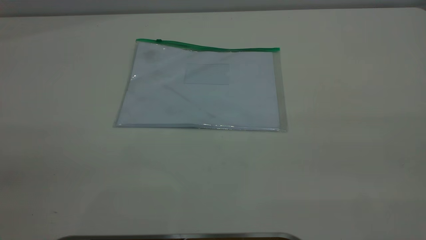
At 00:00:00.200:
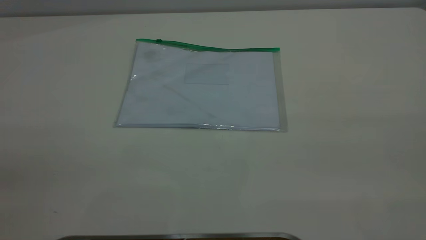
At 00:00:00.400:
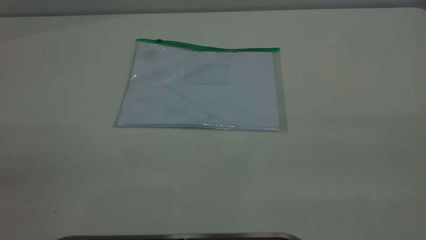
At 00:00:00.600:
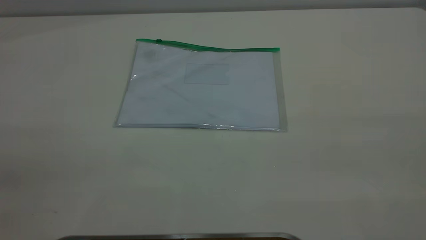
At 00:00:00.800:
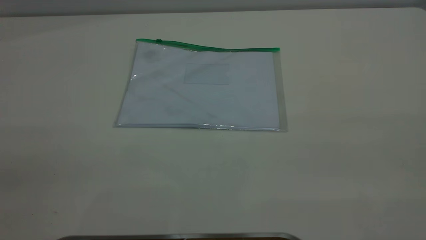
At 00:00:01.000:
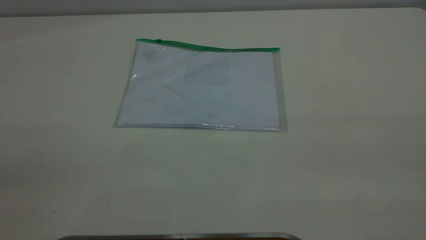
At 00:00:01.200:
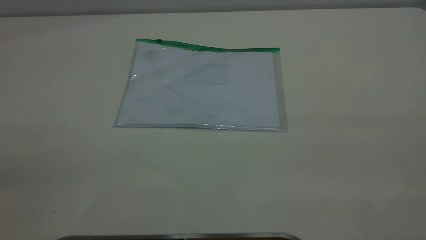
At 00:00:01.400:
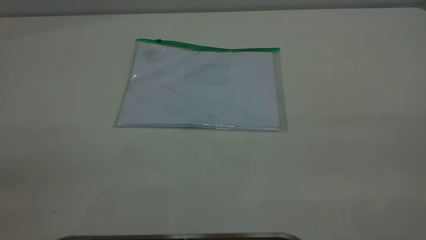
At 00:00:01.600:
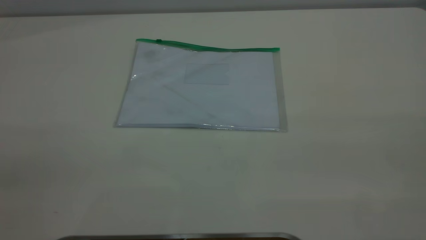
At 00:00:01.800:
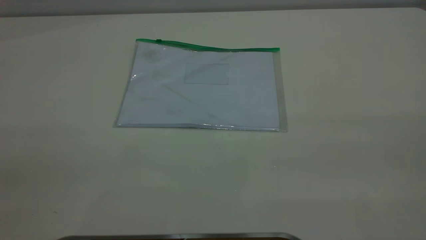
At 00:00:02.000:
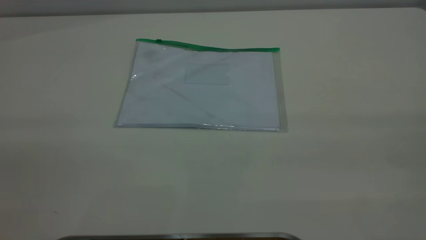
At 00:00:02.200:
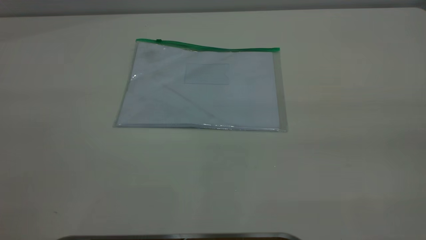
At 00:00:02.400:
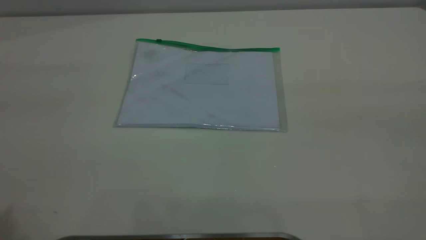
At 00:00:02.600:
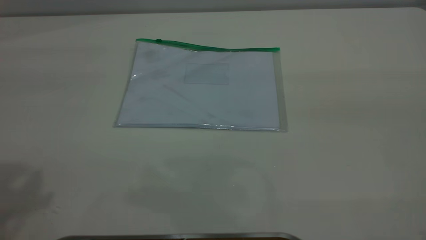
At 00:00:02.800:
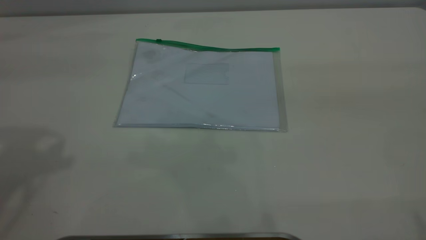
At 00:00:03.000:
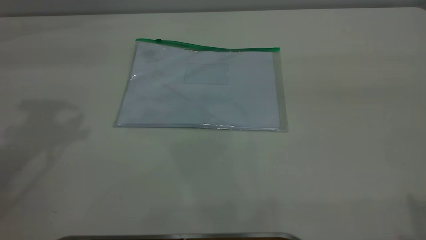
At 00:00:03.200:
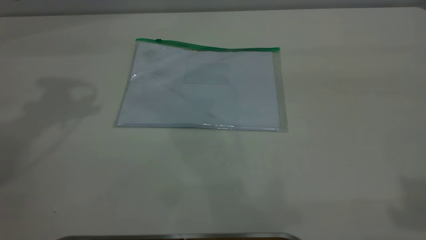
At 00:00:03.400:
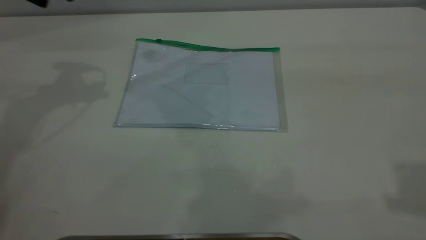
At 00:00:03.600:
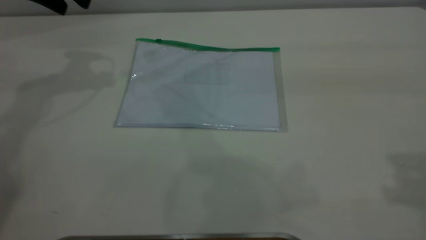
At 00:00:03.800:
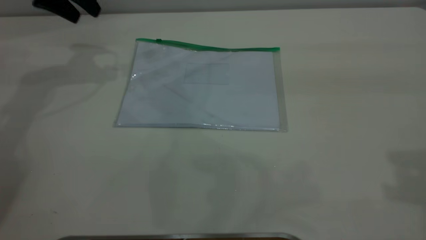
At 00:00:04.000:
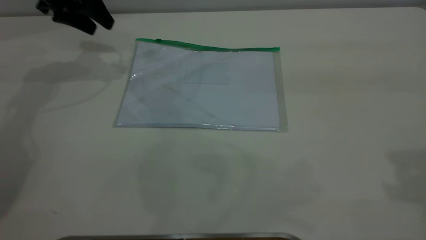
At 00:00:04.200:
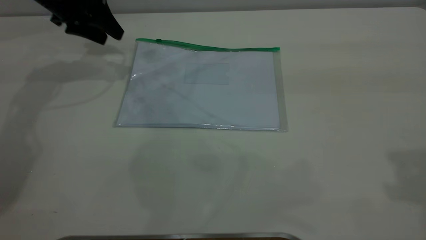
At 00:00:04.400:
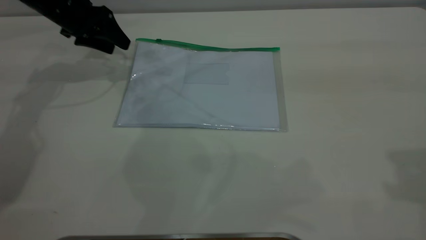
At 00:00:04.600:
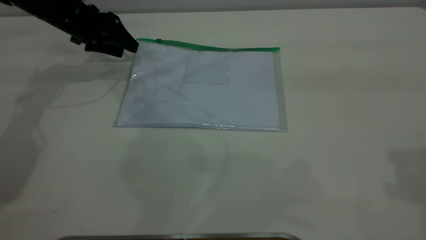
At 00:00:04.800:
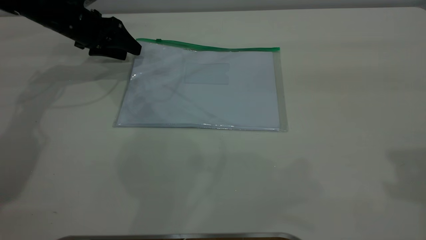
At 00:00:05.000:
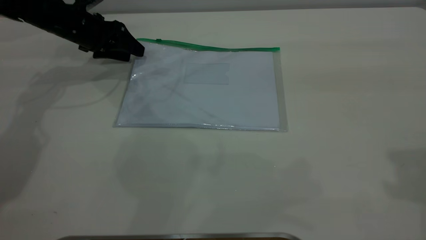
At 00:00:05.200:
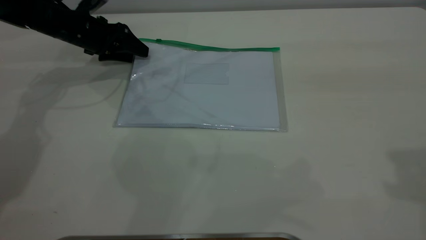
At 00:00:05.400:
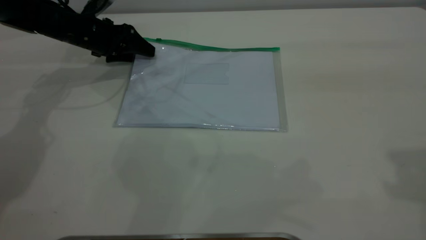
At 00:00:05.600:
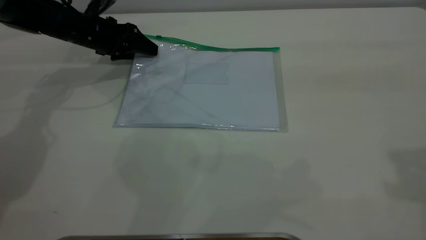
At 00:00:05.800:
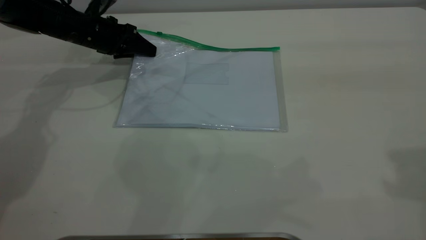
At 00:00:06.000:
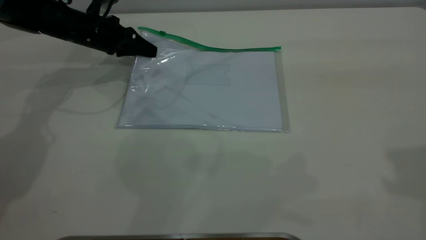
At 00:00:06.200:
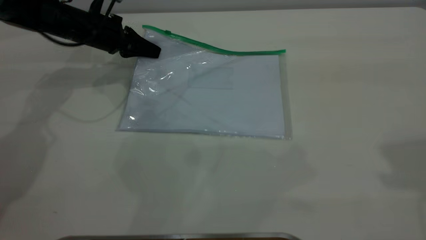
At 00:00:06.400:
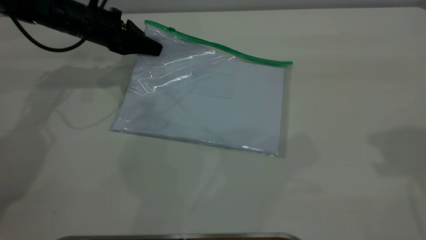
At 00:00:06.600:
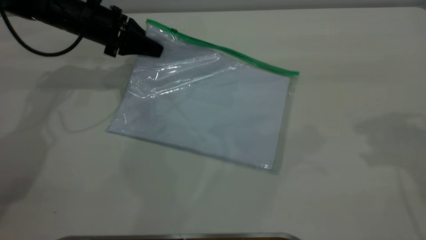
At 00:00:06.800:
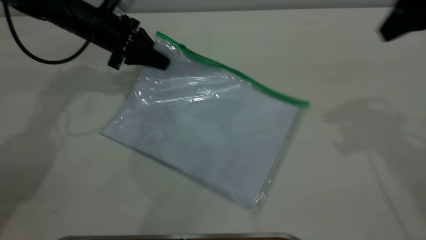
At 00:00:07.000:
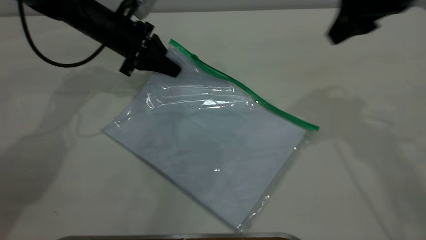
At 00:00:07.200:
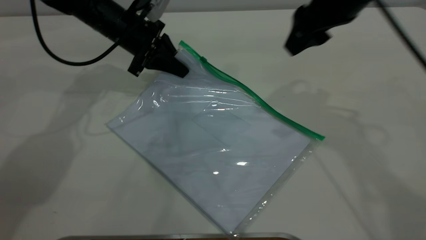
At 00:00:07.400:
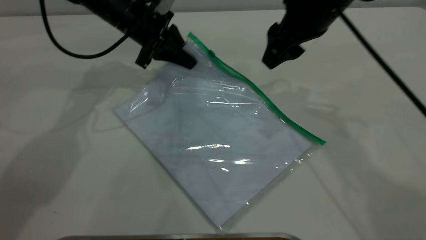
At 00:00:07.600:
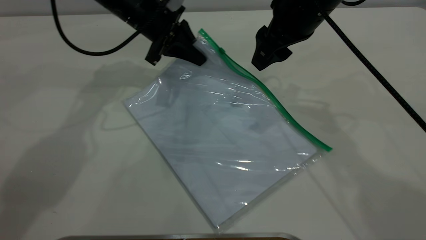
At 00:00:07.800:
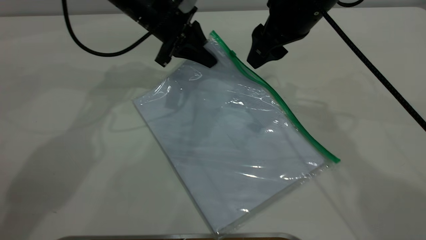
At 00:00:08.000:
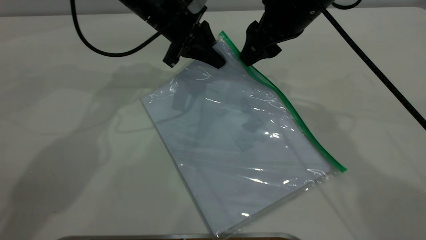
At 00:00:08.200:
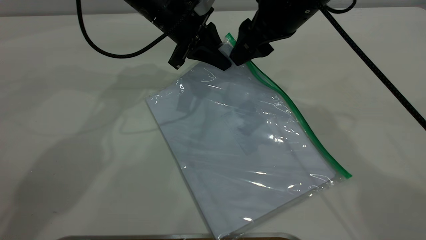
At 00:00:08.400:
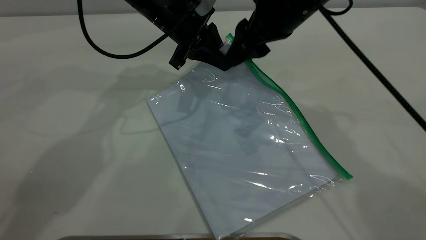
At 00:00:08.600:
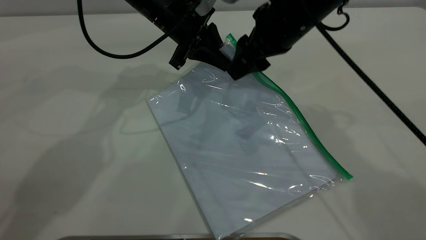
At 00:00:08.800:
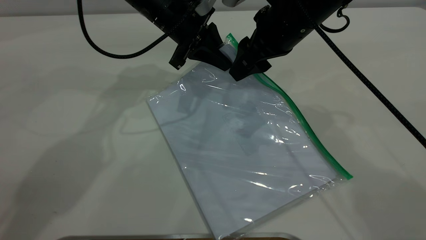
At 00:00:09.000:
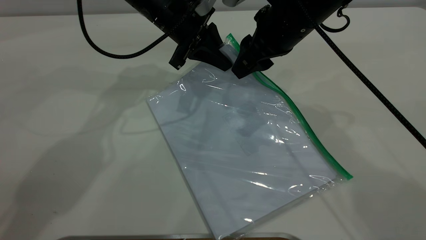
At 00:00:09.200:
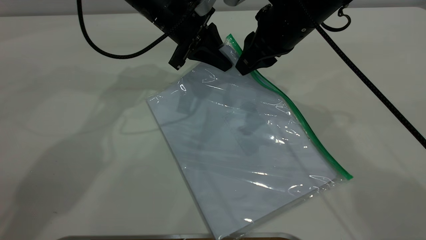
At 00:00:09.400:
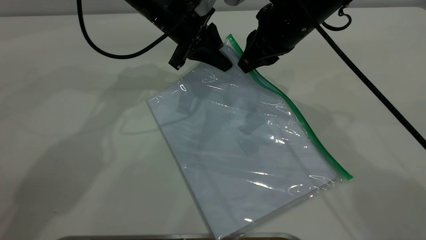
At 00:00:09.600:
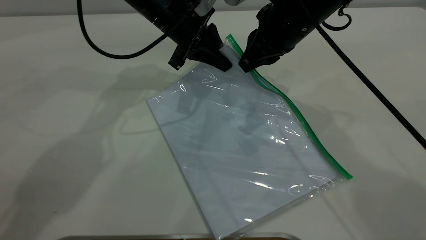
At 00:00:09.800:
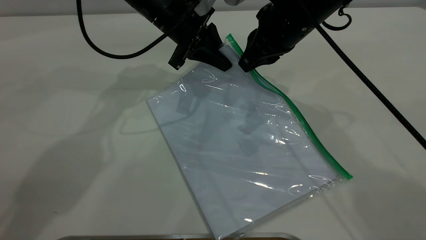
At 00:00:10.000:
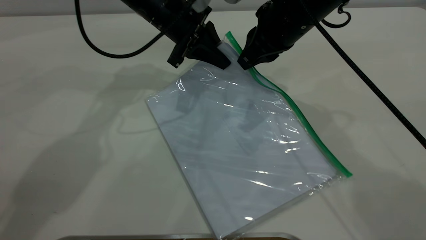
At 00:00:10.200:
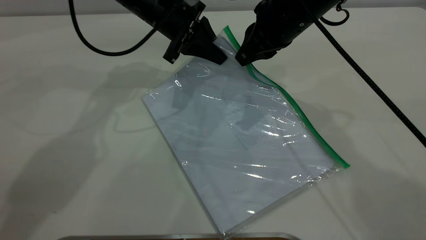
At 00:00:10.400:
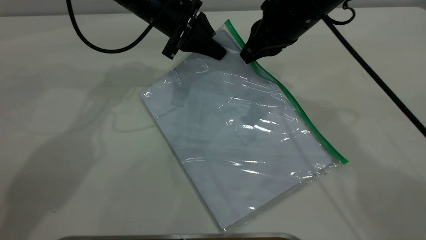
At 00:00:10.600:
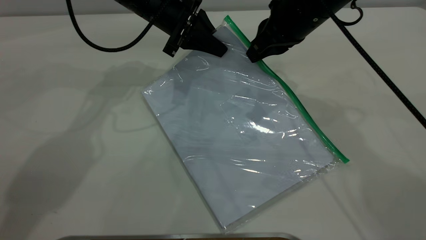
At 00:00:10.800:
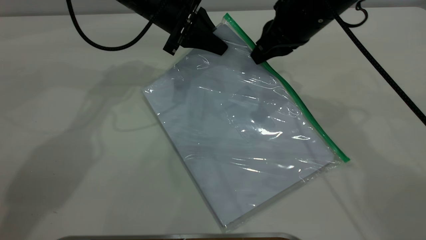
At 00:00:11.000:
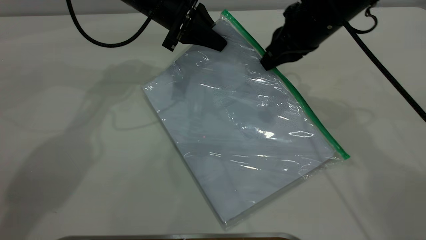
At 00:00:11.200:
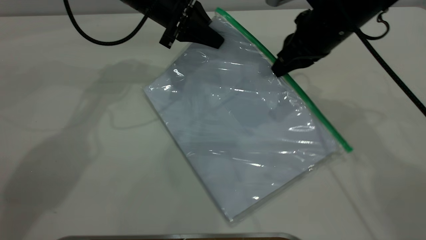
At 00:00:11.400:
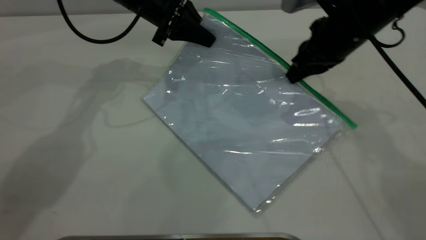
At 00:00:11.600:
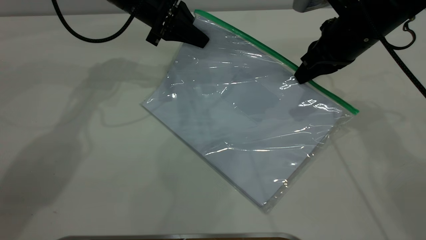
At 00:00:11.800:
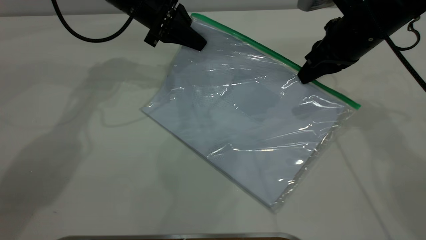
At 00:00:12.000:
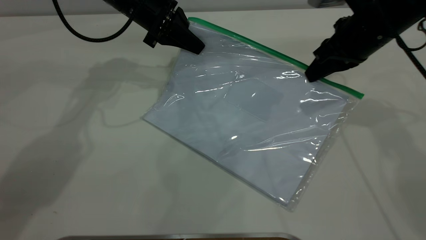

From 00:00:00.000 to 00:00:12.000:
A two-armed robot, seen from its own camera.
Step, from 00:00:00.000 to 00:00:06.800: Pick up the transparent plastic bag with the left gripper.
From 00:00:00.000 to 00:00:01.600: Both grippers stay about where they are.
From 00:00:03.000 to 00:00:04.400: The left gripper is displaced downward and forward by approximately 25 cm.
From 00:00:04.400 to 00:00:06.000: The left gripper shifts approximately 5 cm downward, and closes.
From 00:00:06.000 to 00:00:07.600: The left gripper is displaced to the right and upward by some 15 cm. The right gripper is displaced to the left, forward and downward by about 30 cm.
From 00:00:07.600 to 00:00:09.000: The right gripper closes.
From 00:00:09.000 to 00:00:10.400: The right gripper closes its fingers.
From 00:00:10.400 to 00:00:12.000: The right gripper shifts some 10 cm to the right.

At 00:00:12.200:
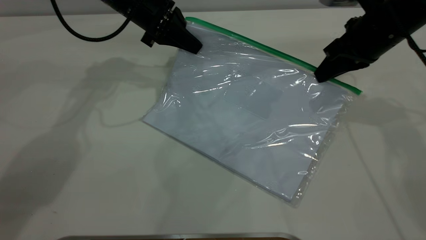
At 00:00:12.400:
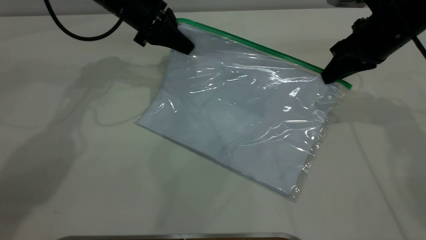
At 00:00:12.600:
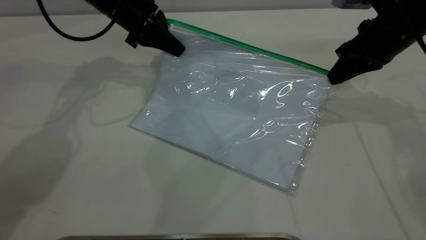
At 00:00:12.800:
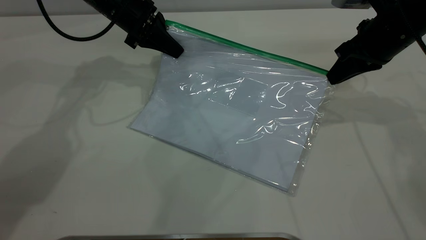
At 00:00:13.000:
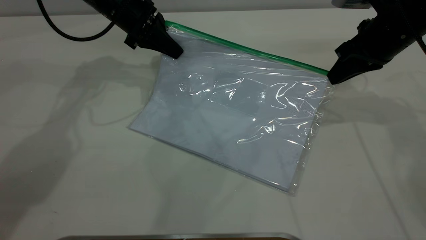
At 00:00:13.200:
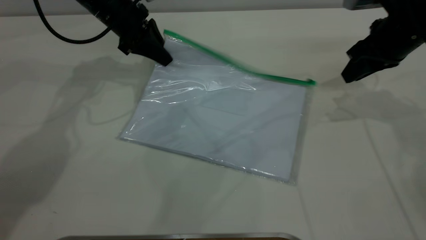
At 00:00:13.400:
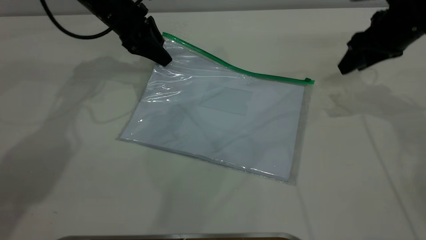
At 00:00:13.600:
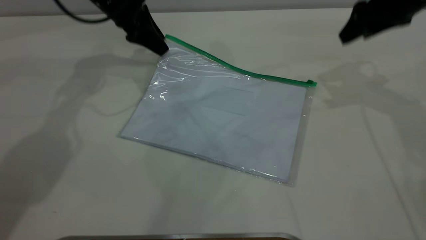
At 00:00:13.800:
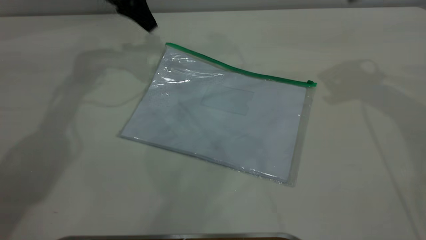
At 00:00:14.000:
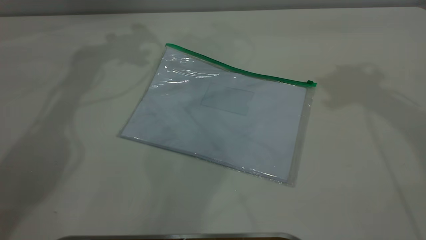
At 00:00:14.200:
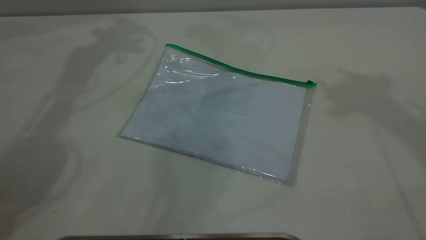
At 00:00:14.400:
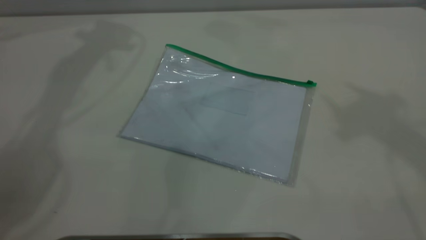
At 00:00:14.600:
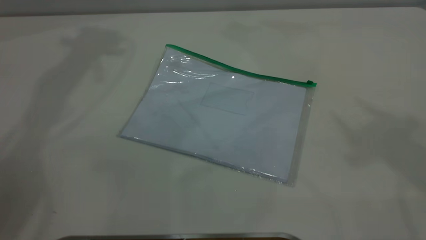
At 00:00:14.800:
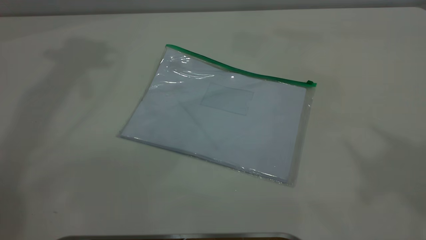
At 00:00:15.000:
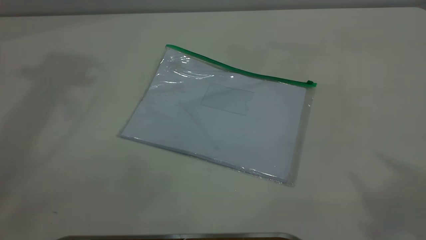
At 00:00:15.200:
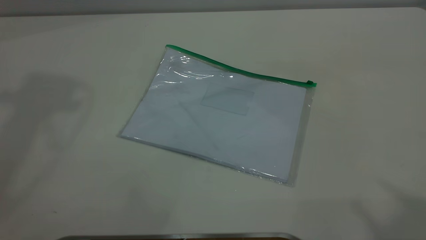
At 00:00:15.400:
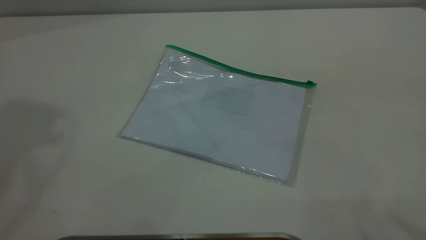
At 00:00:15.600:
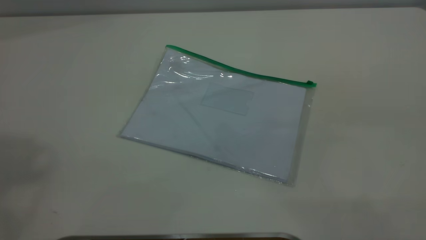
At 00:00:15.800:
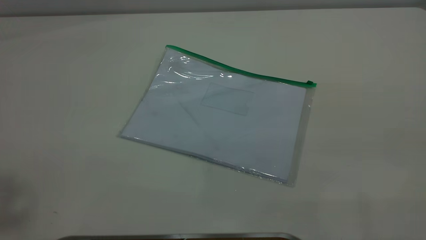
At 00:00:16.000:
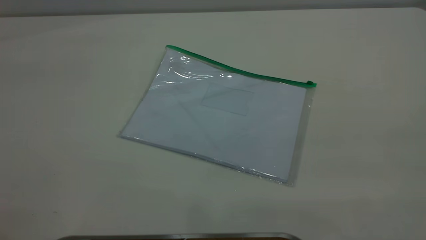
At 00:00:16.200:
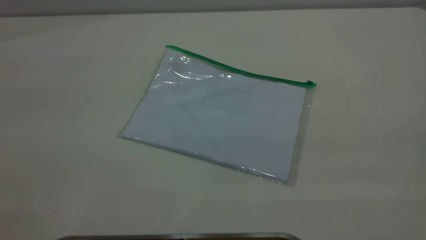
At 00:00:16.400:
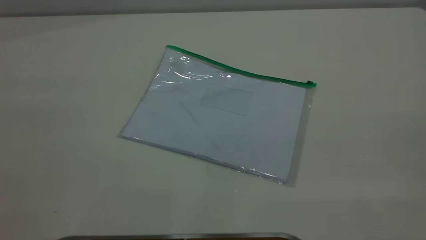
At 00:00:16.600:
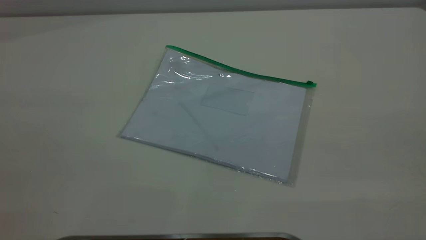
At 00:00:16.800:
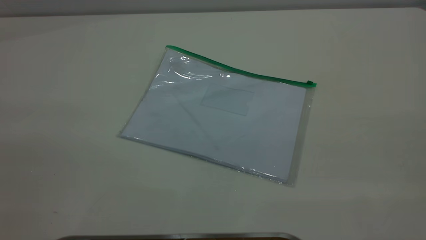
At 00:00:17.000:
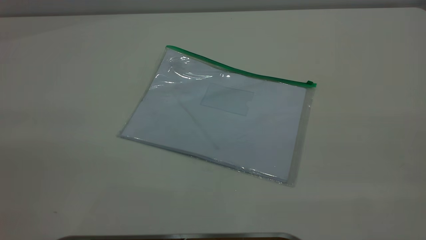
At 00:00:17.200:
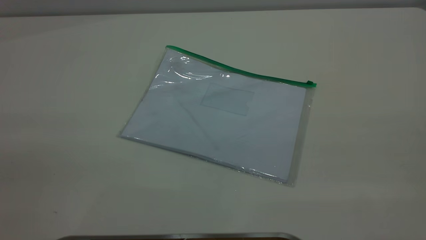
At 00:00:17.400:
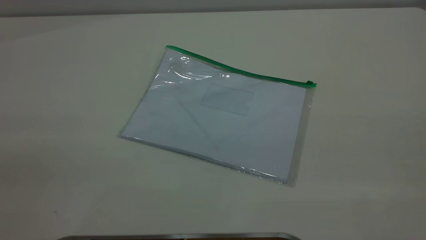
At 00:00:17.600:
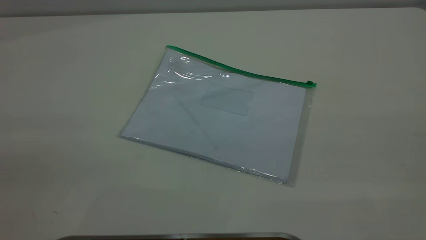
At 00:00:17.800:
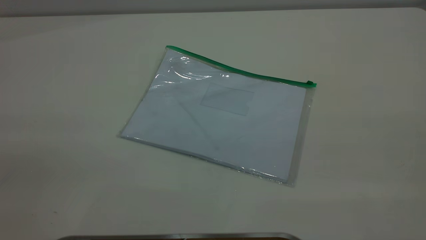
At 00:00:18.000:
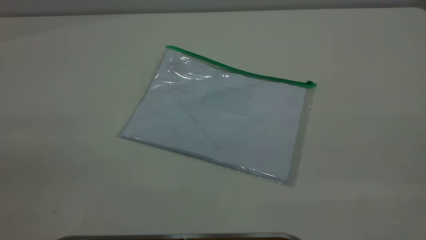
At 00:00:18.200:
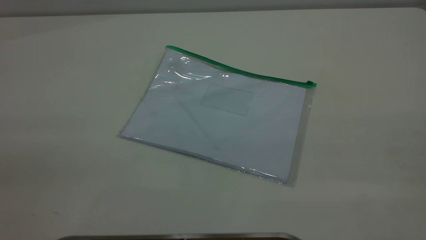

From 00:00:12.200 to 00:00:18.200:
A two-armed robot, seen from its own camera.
Step, from 00:00:13.400 to 00:00:13.600: Place the transparent plastic bag.
From 00:00:12.200 to 00:00:13.800: The left gripper heads upward, covering about 5 cm, and opens its fingers, while the right gripper moves upward, about 15 cm, and opens its fingers.
From 00:00:13.800 to 00:00:15.200: The right gripper heads backward and upward, covering approximately 35 cm, while the left gripper moves upward and backward, roughly 40 cm.
